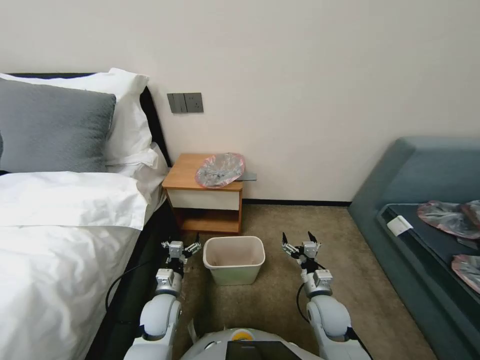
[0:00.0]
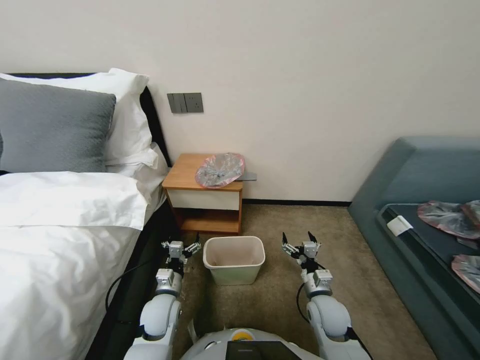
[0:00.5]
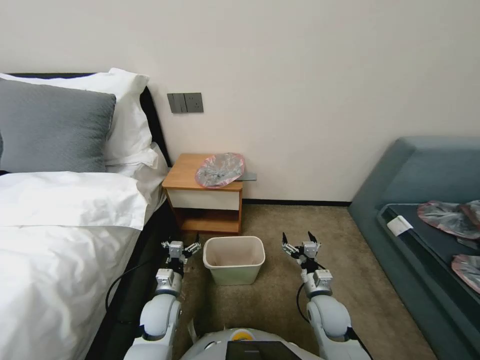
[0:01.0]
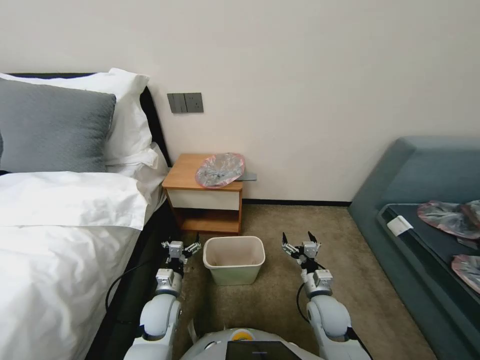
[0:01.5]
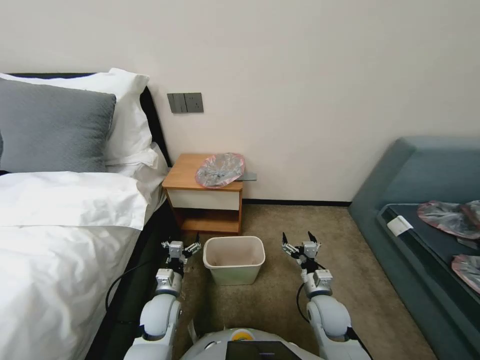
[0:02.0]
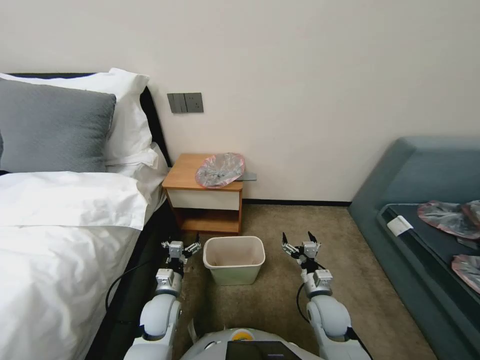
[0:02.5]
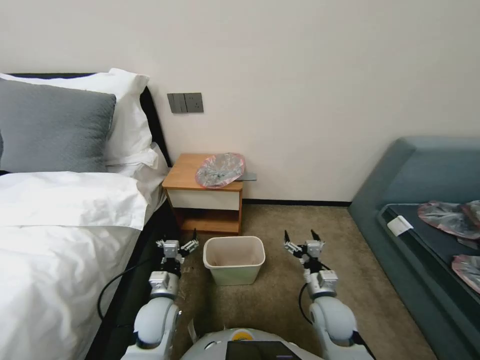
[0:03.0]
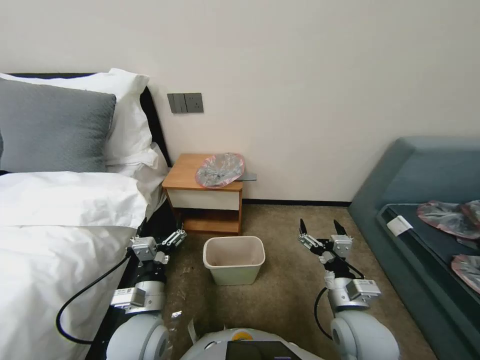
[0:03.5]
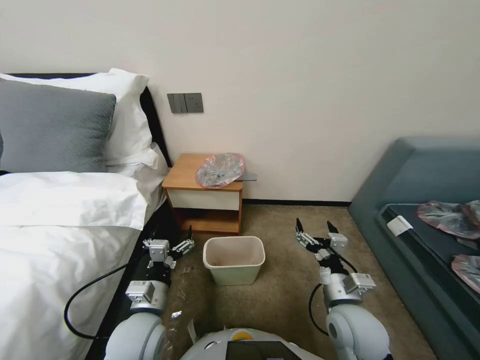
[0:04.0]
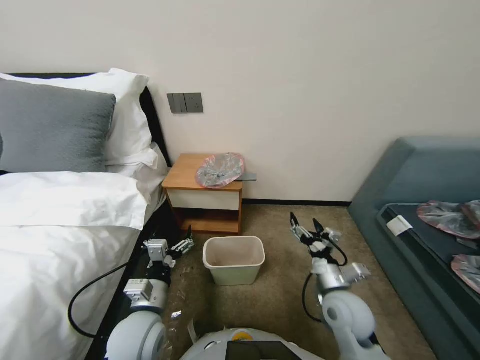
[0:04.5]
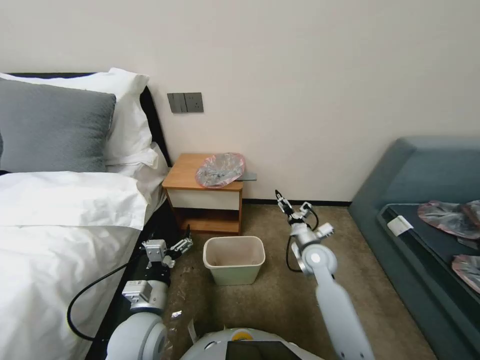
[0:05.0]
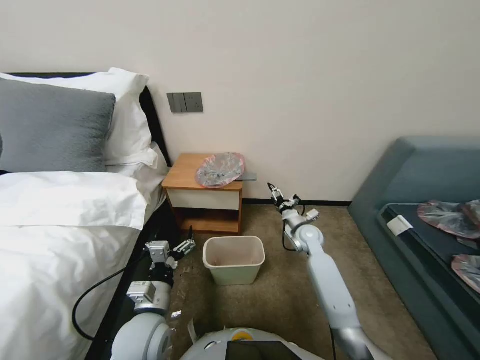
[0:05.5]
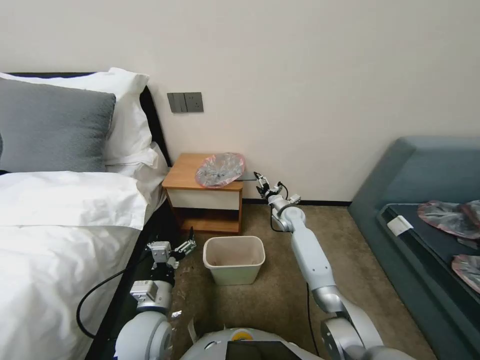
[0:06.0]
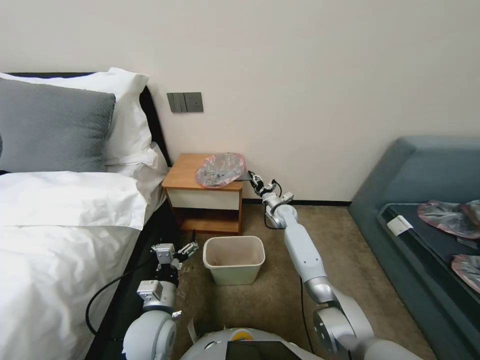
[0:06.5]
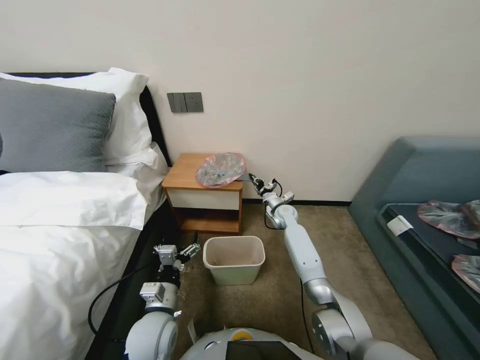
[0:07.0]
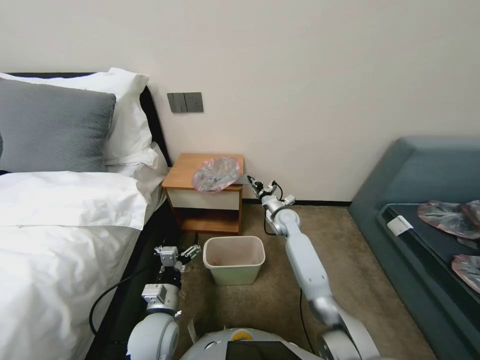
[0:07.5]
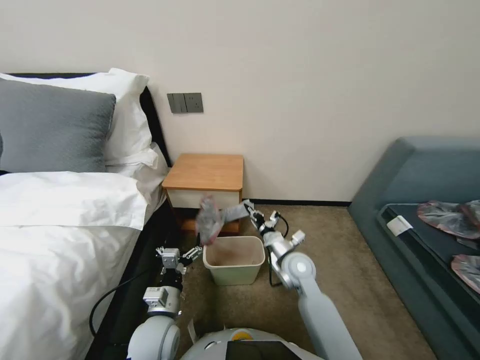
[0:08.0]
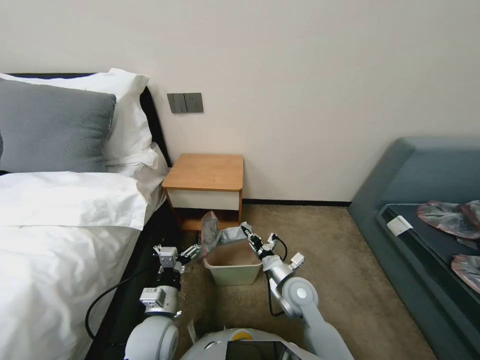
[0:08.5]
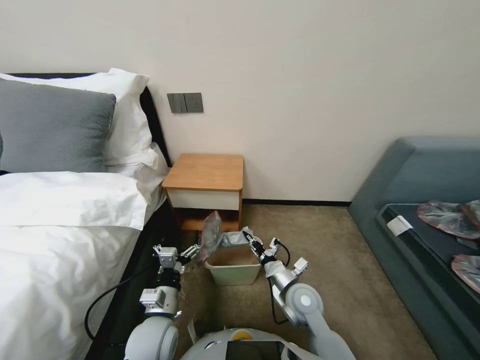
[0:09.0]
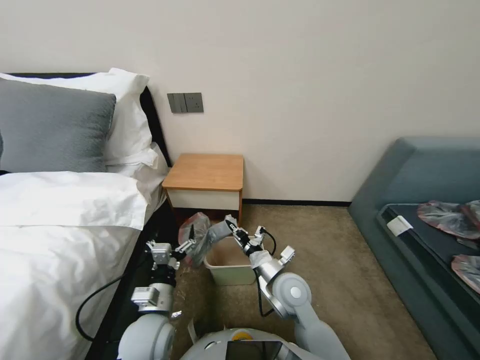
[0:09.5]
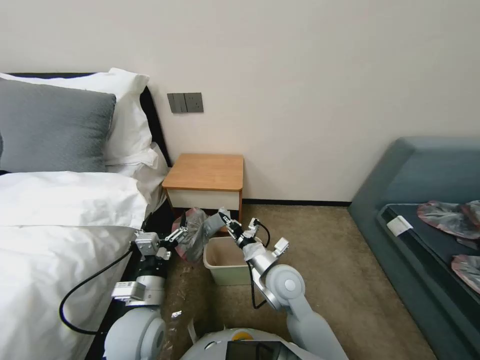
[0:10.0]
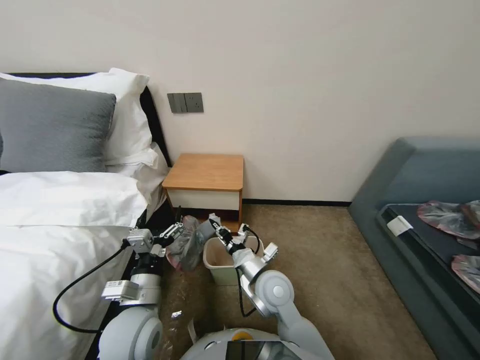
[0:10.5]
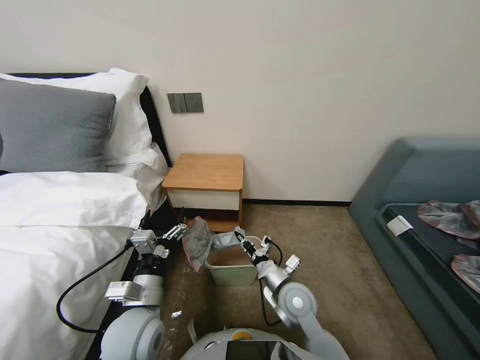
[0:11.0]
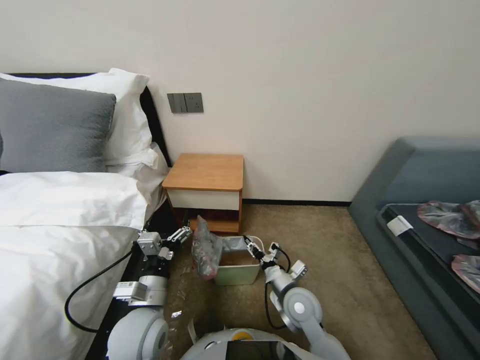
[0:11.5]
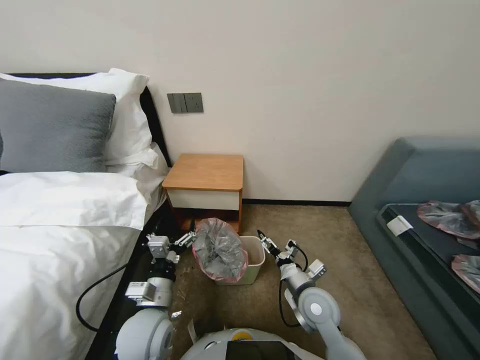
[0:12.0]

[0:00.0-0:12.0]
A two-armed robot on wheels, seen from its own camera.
Task of the whole recording: Pick up the garbage bag from the table and place it over the trash can.
0:02.0 to 0:04.0: Both grippers travel together upward and backward, some 15 cm.
0:04.0 to 0:06.0: The right gripper moves forward, about 35 cm.
0:06.0 to 0:08.0: The right gripper goes roughly 15 cm backward, and closes up.
0:08.0 to 0:10.0: The left gripper is displaced upward by approximately 5 cm, while the right gripper goes about 15 cm backward and to the left.
0:10.0 to 0:12.0: The right gripper heads to the right, covering some 10 cm, and opens its fingers.

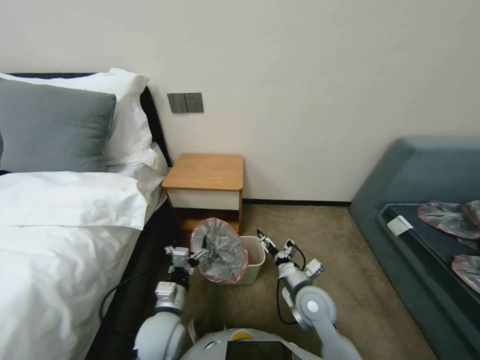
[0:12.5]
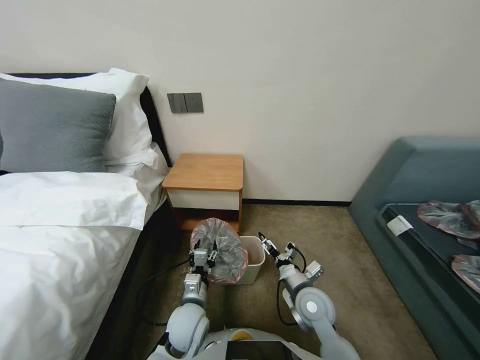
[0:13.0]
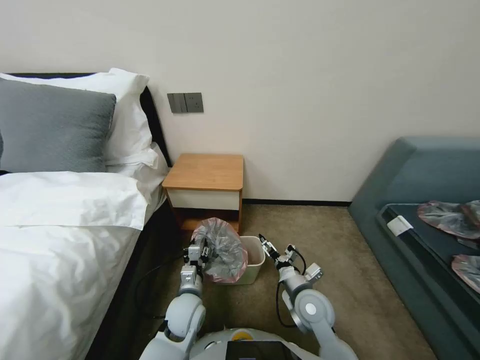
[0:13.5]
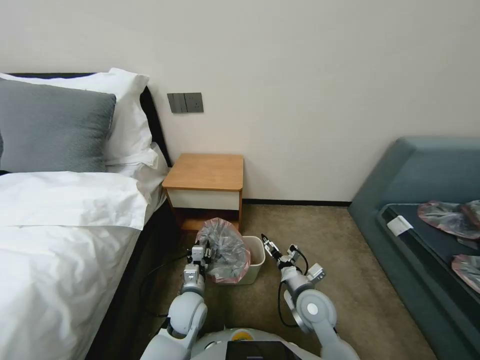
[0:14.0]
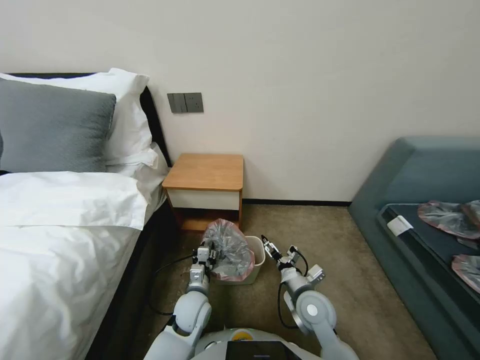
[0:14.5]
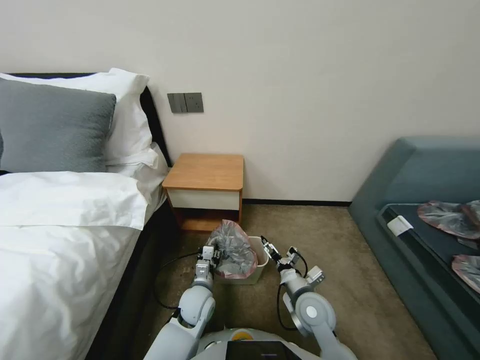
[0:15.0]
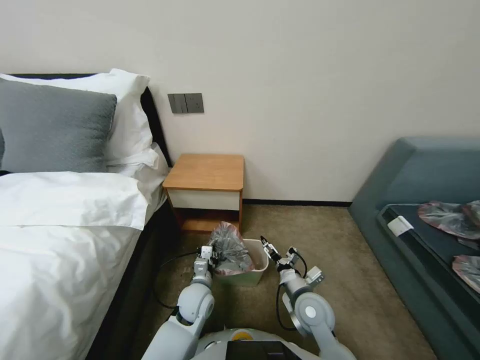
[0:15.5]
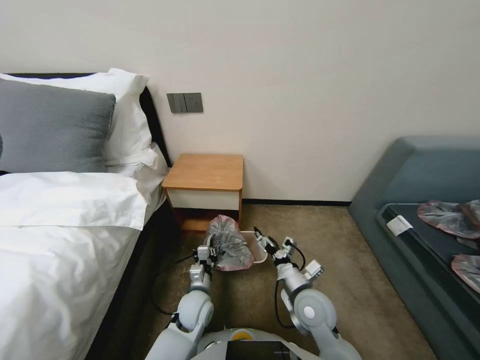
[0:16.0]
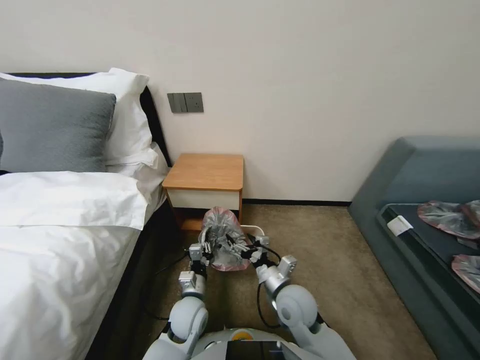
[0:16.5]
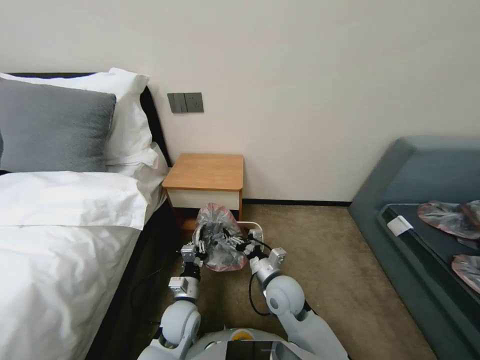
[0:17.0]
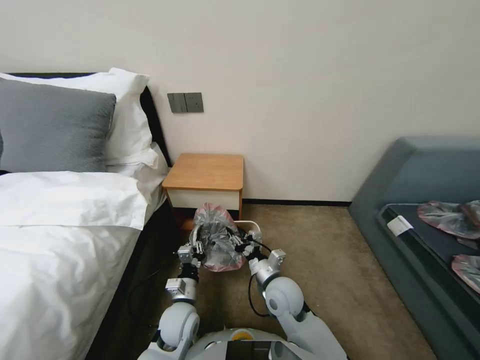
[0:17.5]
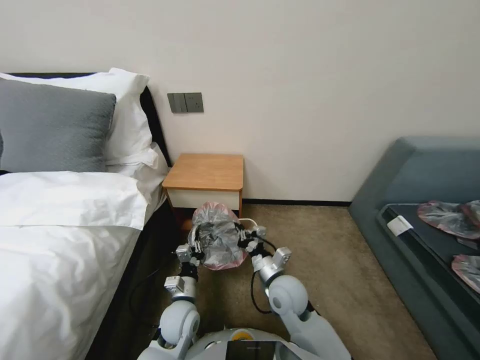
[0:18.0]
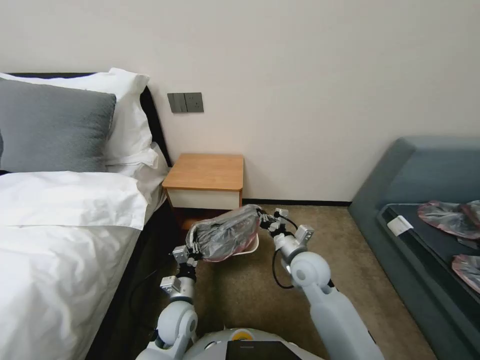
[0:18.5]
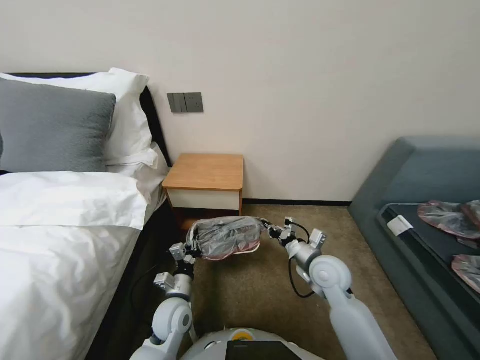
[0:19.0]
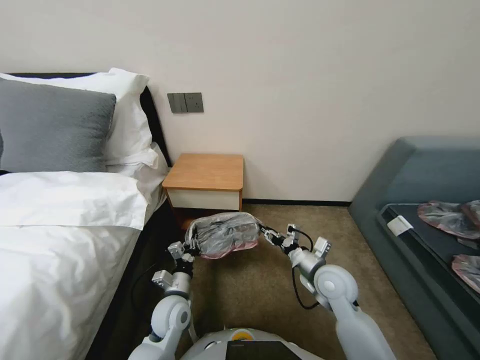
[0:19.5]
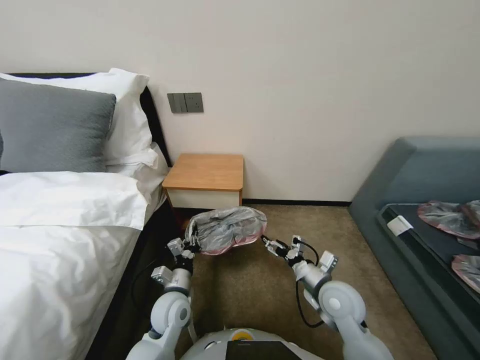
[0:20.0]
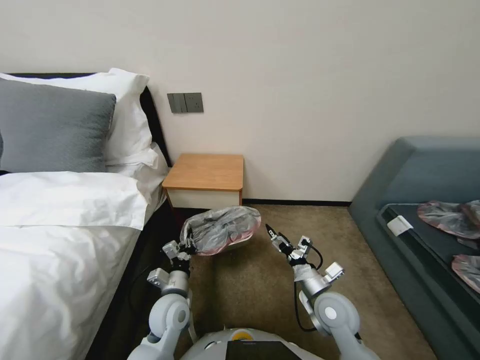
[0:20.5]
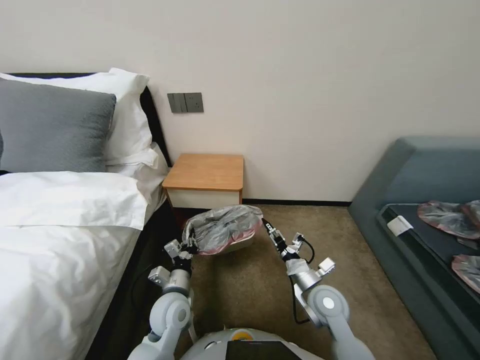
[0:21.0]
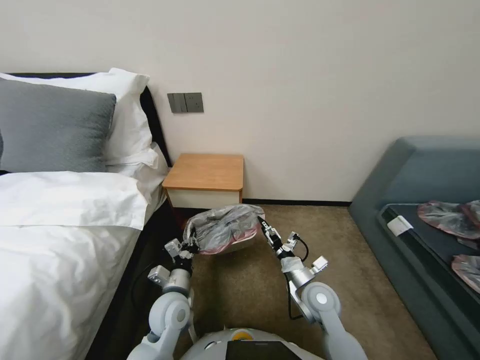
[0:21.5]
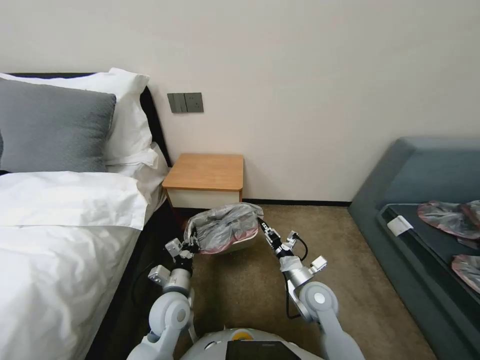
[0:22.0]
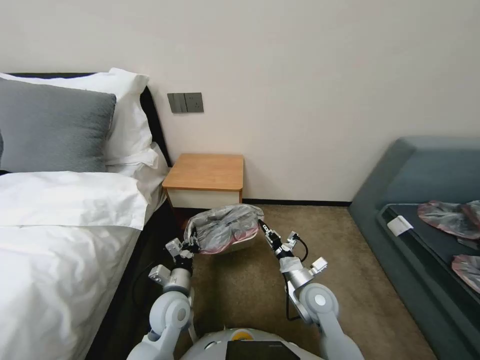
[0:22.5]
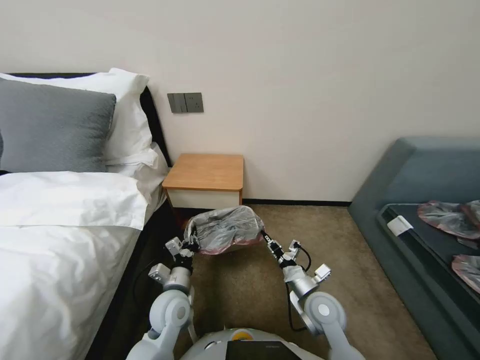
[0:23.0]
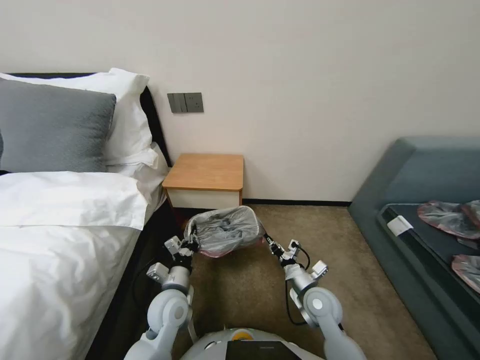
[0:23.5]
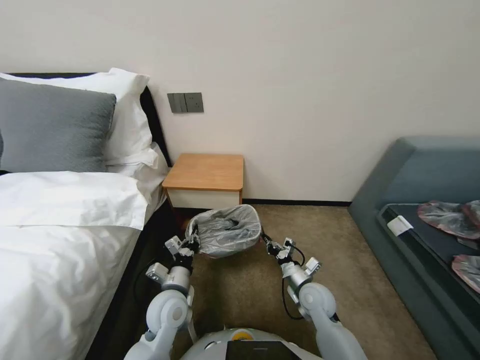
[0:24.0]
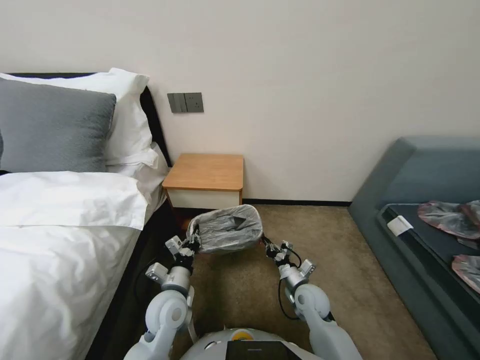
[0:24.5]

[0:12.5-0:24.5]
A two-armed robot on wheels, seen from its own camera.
Task of the whole recording: Pick up the garbage bag from the table and place it over the trash can.
0:12.5 to 0:14.5: The left gripper goes some 10 cm downward, forward and to the right, and closes up.
0:14.5 to 0:16.5: The right gripper ends up roughly 5 cm from where it was.
0:16.5 to 0:18.5: The right gripper shifts approximately 5 cm forward, and closes its fingers.
0:18.5 to 0:20.5: The right gripper goes about 10 cm backward and to the right, and opens.
0:20.5 to 0:22.5: The right gripper closes up.
0:22.5 to 0:24.5: The right gripper is displaced downward by about 5 cm.

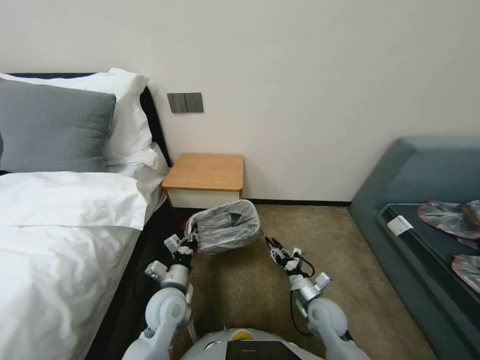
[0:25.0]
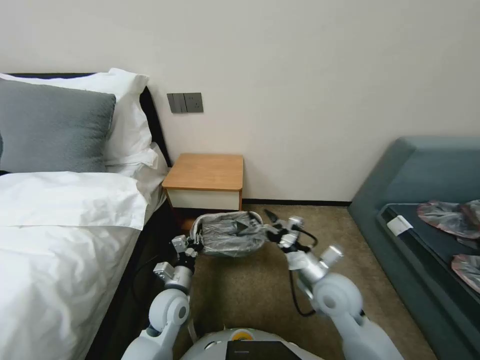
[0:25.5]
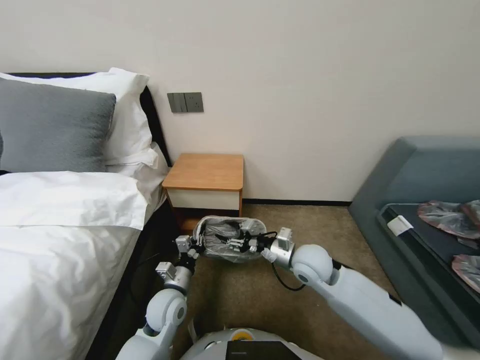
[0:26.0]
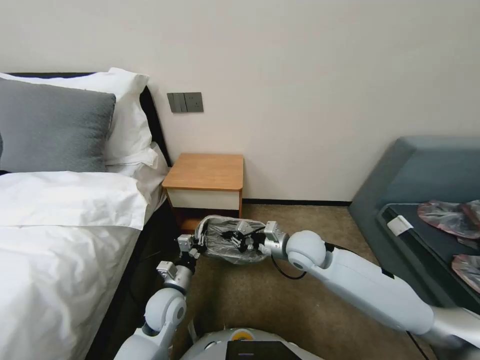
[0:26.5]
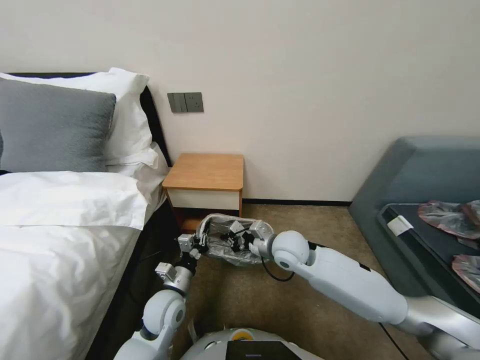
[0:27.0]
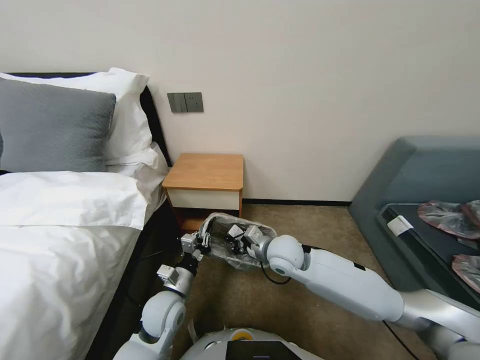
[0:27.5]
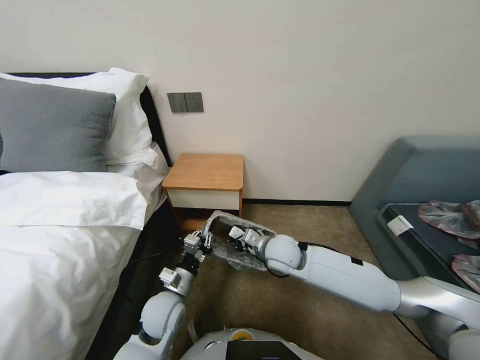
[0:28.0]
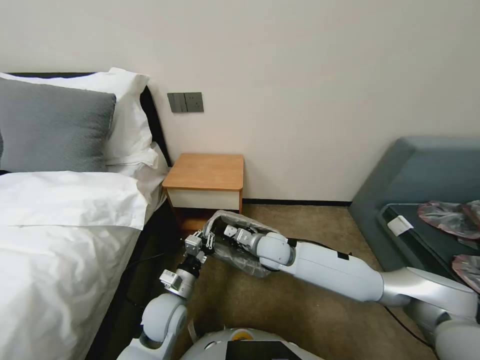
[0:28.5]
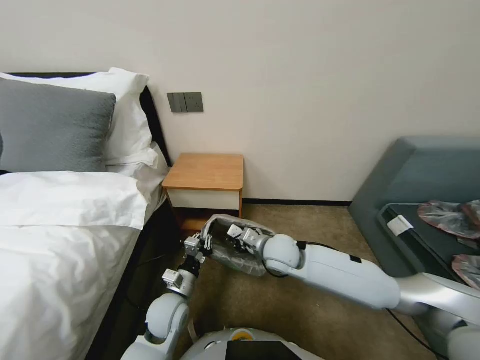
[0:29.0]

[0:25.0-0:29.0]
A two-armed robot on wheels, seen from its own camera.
Task of the whole recording: Pick up the garbage bag from the table and place it over the trash can.
0:25.0 to 0:27.0: The right gripper goes some 25 cm upward, forward and to the left, and closes its fingers.
